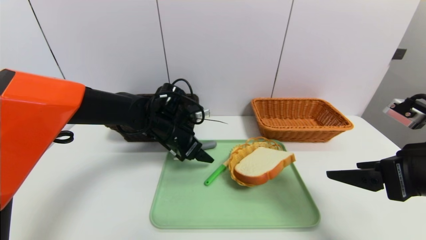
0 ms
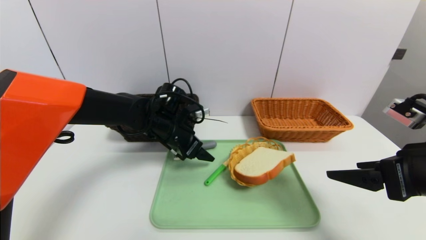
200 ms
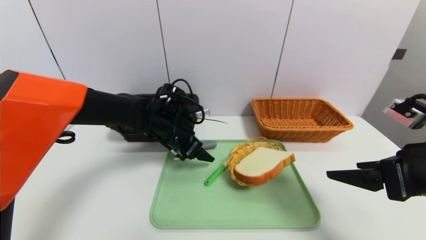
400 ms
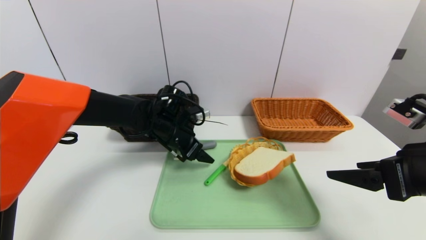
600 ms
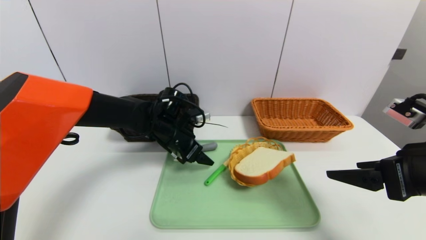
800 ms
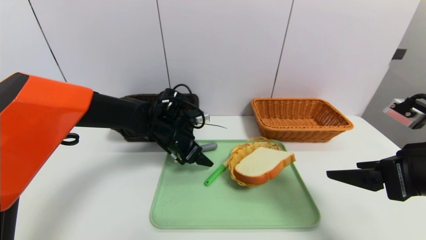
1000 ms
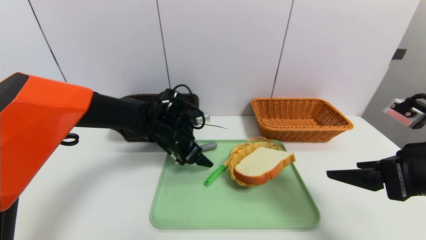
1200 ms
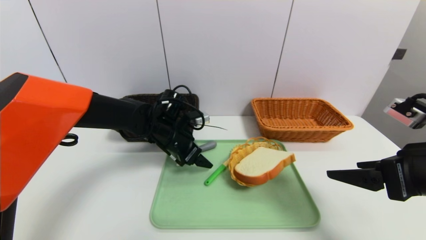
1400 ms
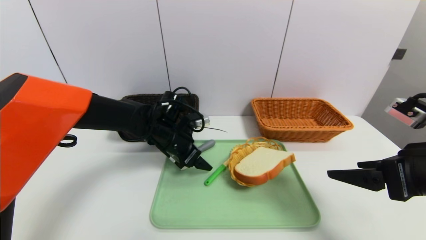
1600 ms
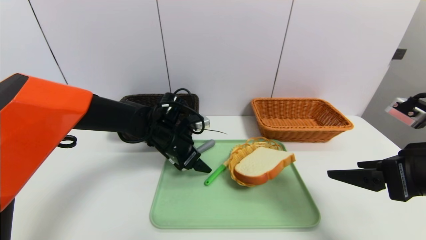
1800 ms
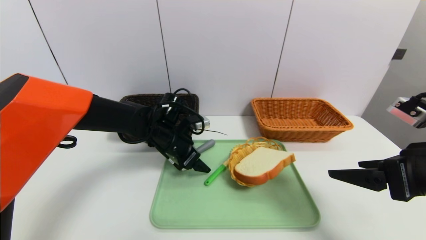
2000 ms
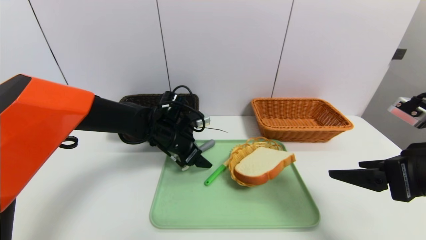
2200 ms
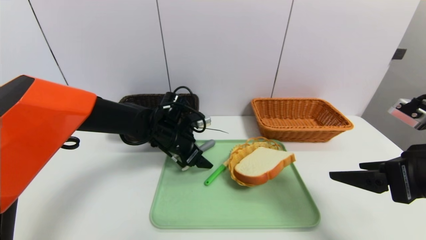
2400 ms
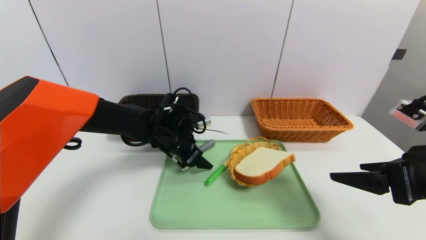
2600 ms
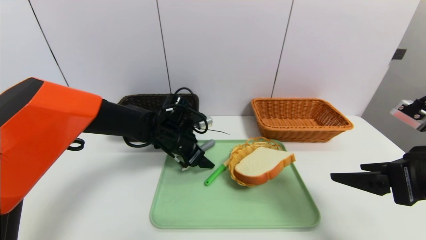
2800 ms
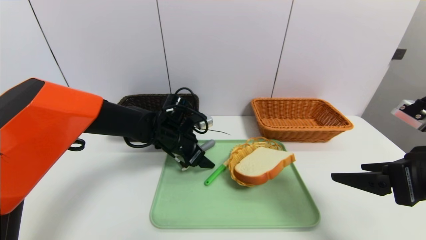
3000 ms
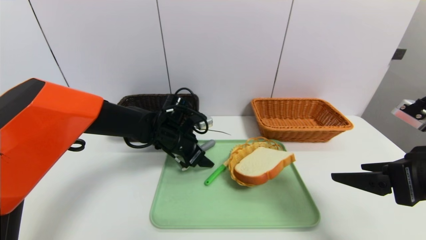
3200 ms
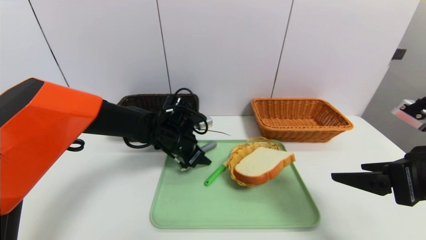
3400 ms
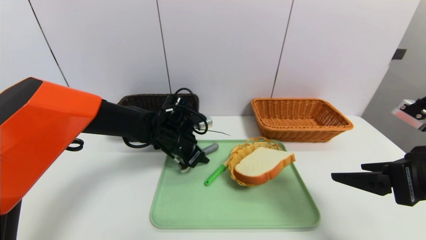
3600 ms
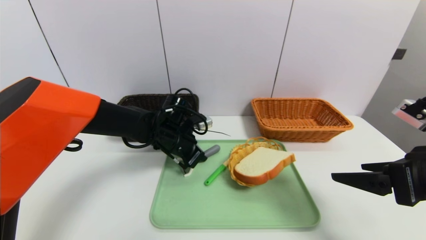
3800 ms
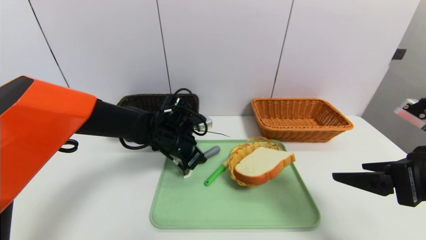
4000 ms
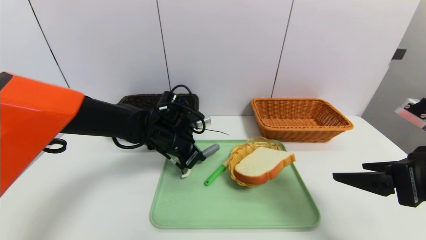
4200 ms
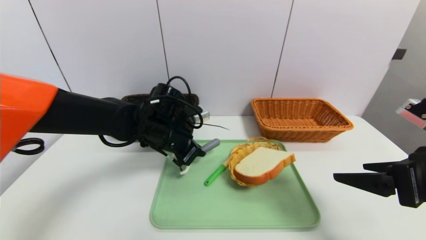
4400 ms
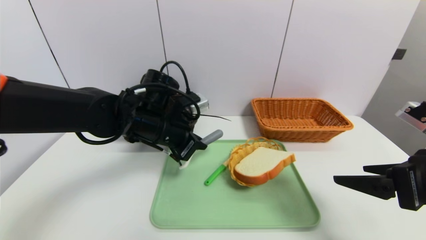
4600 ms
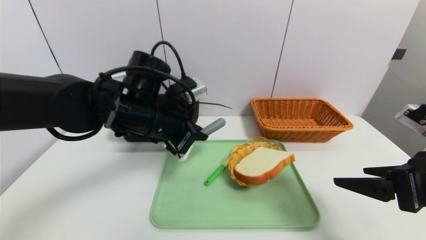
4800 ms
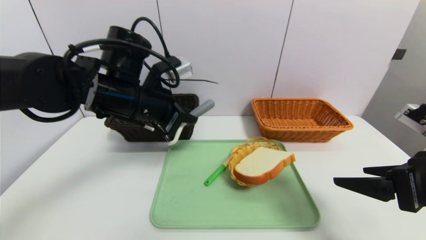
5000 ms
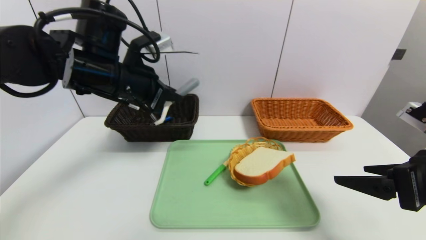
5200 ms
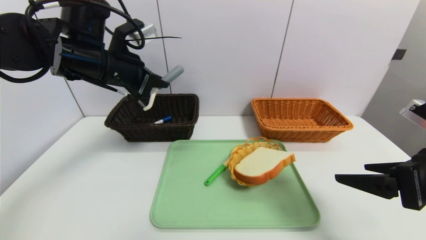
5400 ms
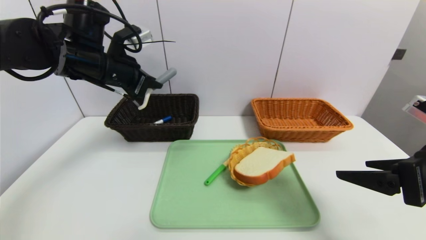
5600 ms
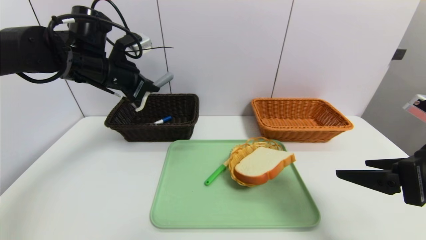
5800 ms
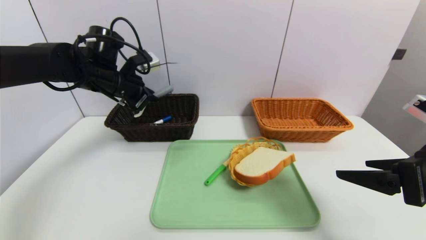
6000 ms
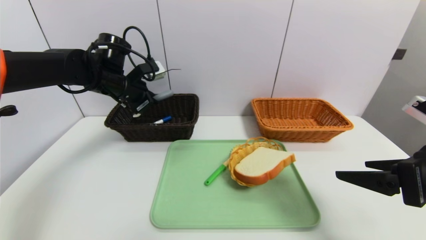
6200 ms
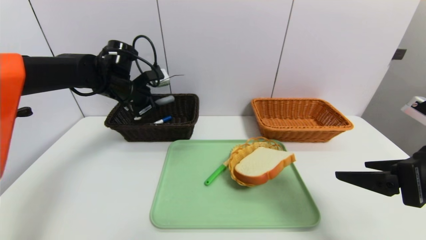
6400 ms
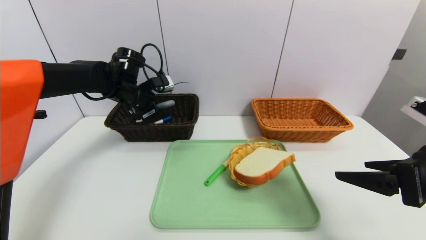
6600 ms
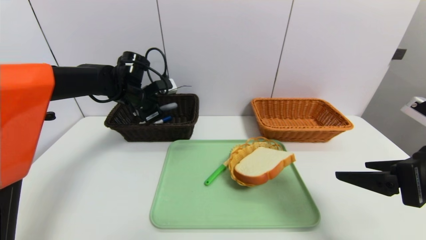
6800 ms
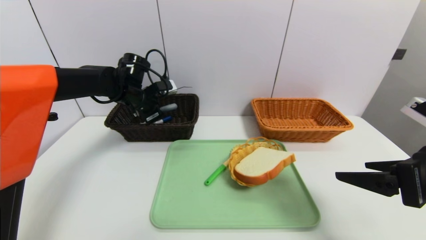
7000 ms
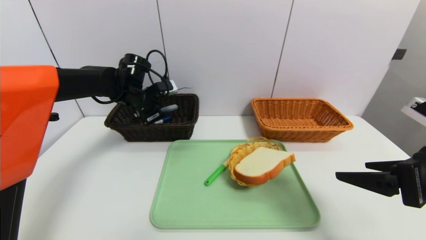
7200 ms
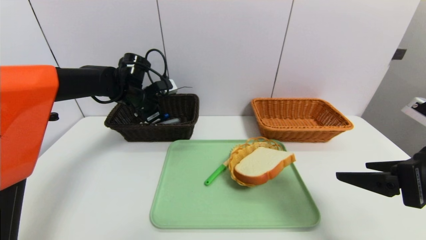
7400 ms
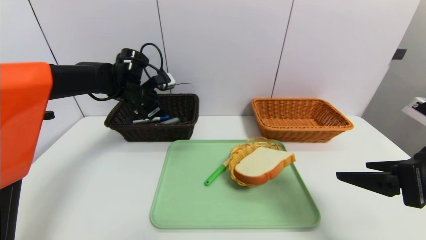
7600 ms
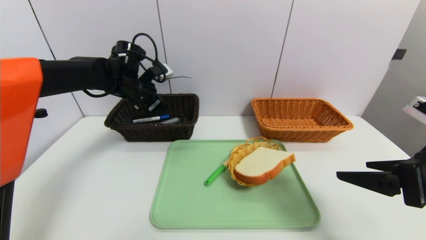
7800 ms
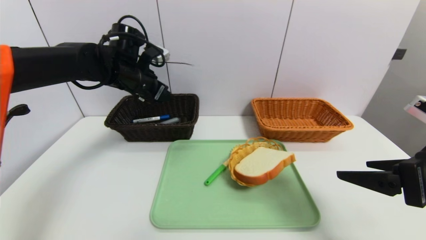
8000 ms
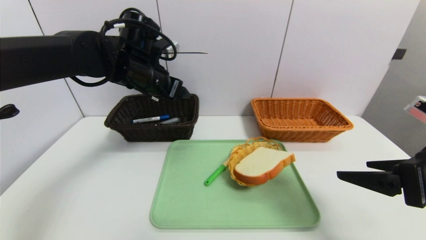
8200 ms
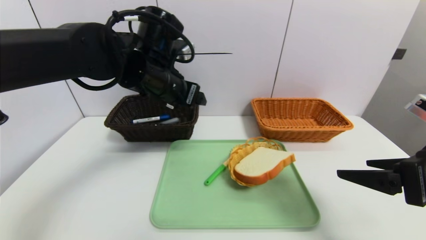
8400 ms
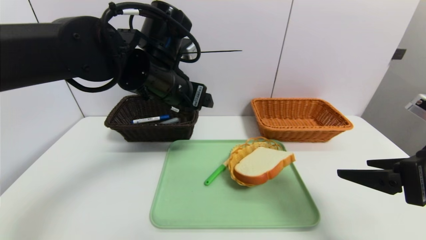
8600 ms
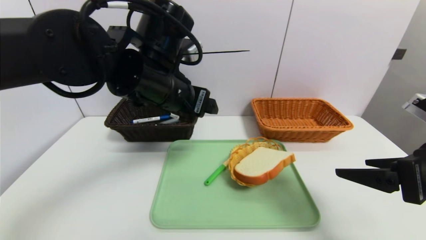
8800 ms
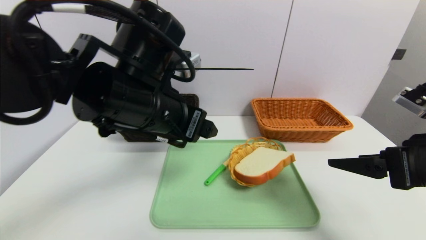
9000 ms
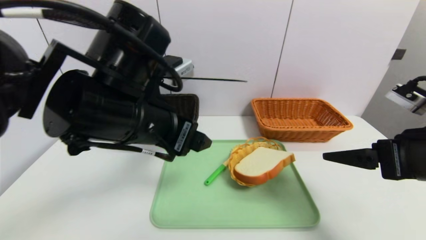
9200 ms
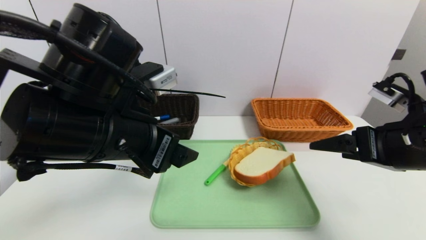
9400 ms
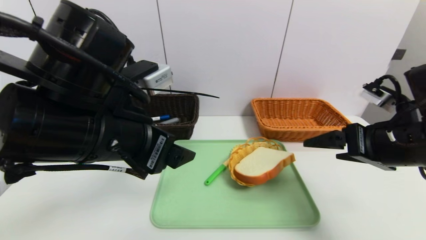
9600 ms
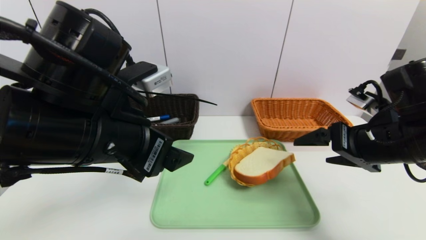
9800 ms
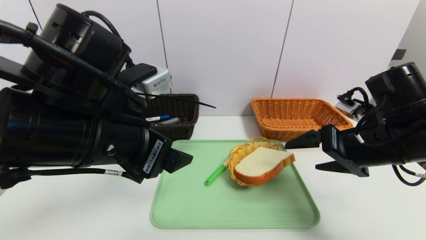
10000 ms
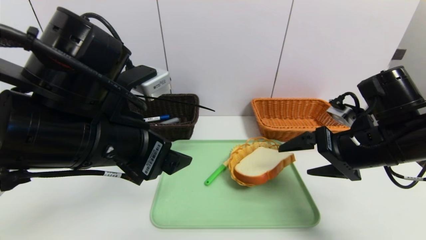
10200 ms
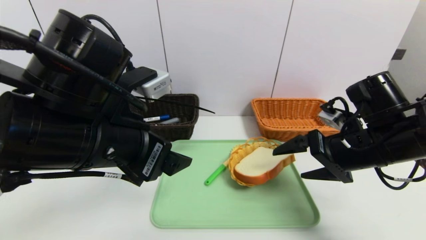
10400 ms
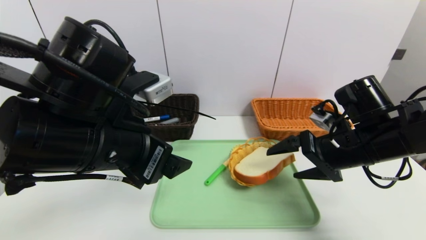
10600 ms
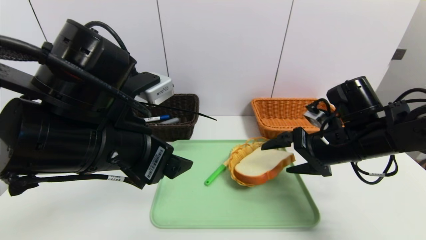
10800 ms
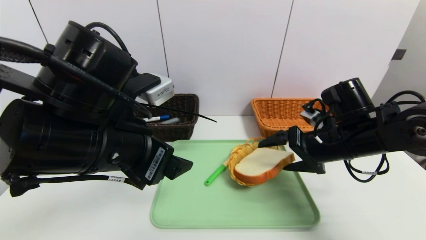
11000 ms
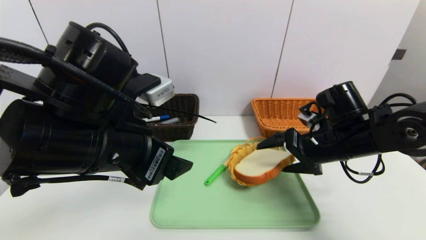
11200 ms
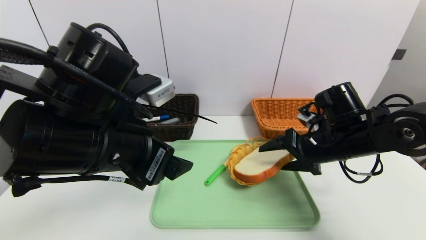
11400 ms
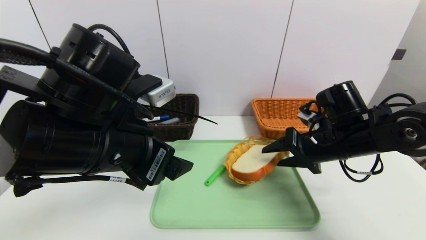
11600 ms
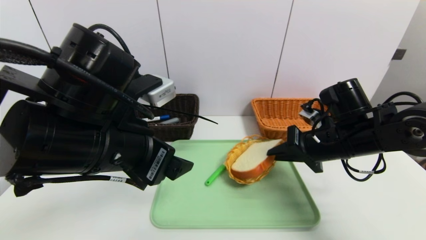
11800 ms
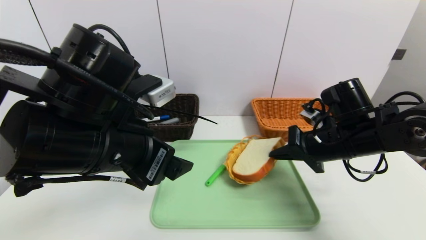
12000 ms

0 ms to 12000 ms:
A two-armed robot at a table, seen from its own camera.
Task of the whole recording: place the food in the right basket with the right gripper, and place the non food items in the left basket with the left gripper.
Step, 0 ms to 7800 ms: Grasp the peeler and put it in the left basket.
0 ms to 3000 ms: The grippers move only a little.
3000 ms to 4400 ms: The left gripper moves some 5 cm, and closes.
4400 ms to 6000 ms: The left gripper heads to the left, upward and forward, covering roughly 15 cm.
6000 ms to 7600 ms: The left gripper moves about 5 cm, and opens up.
7600 ms to 9000 ms: The left gripper is displaced backward and to the right by some 25 cm, and opens up.
9000 ms to 10400 ms: The left gripper moves backward, some 5 cm; the right gripper travels forward by roughly 10 cm.
10400 ms to 12000 ms: The right gripper closes its fingers.

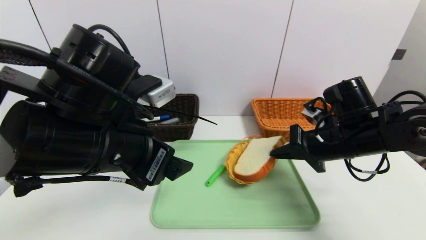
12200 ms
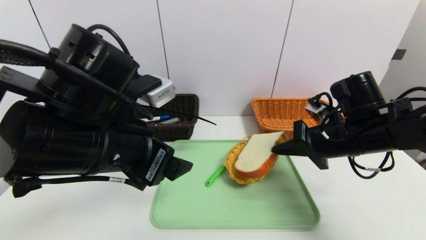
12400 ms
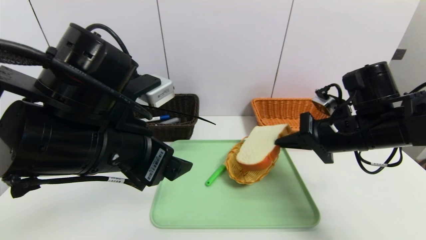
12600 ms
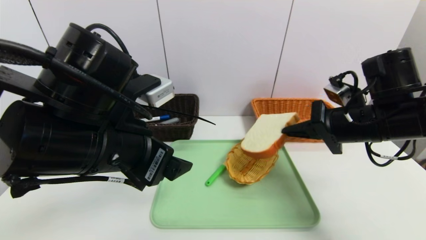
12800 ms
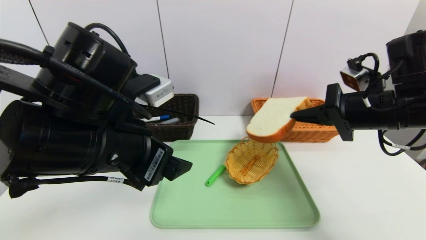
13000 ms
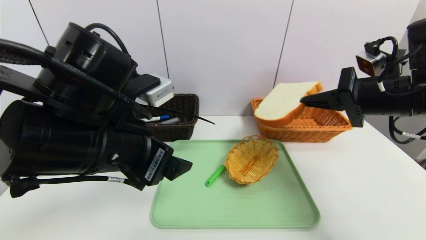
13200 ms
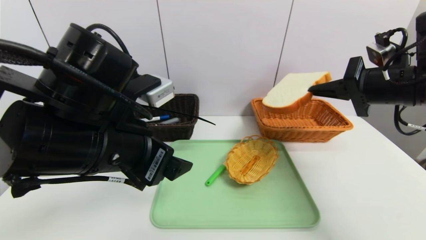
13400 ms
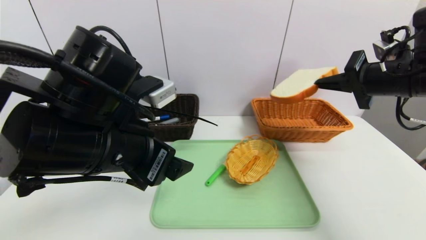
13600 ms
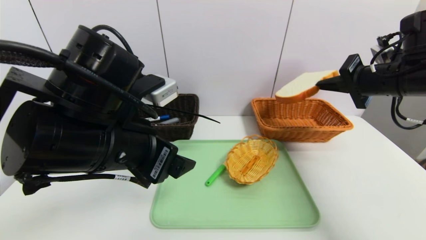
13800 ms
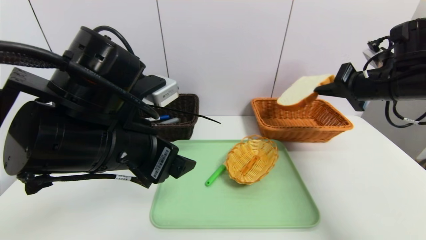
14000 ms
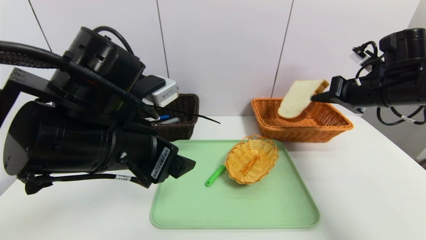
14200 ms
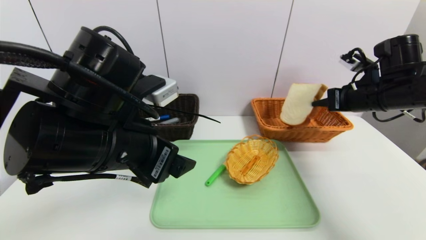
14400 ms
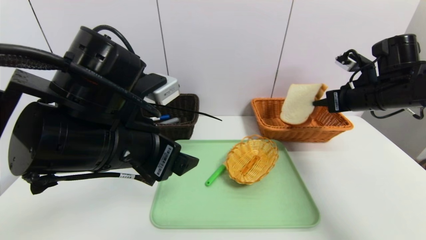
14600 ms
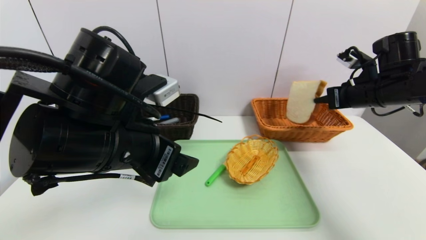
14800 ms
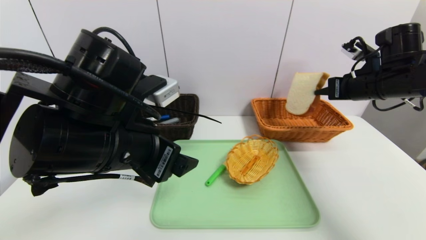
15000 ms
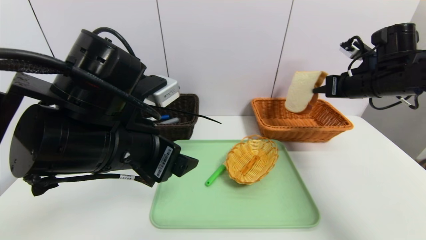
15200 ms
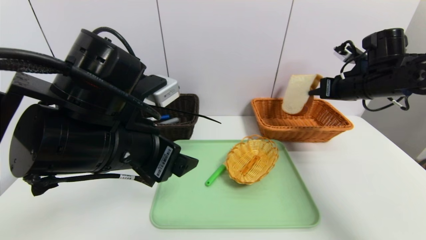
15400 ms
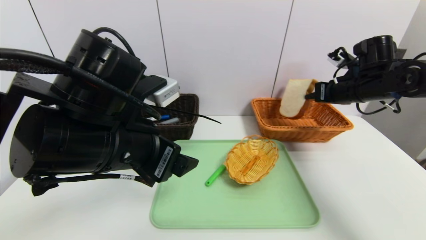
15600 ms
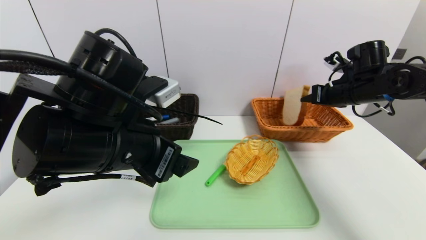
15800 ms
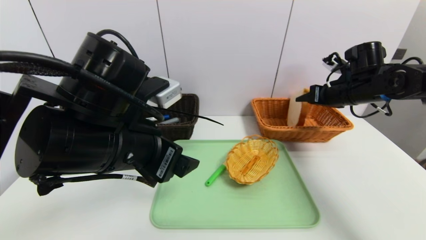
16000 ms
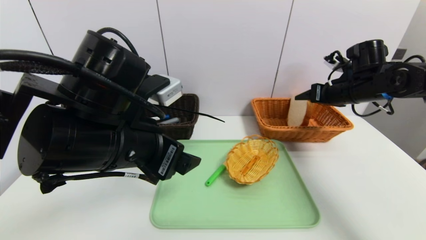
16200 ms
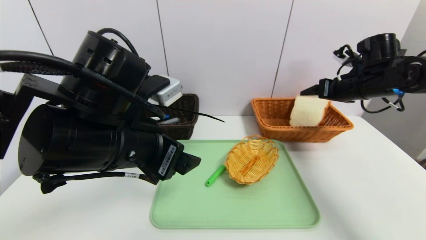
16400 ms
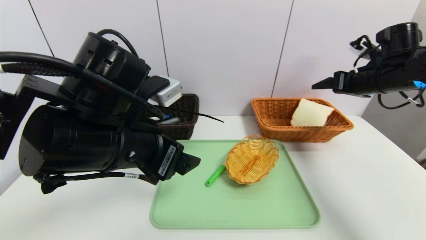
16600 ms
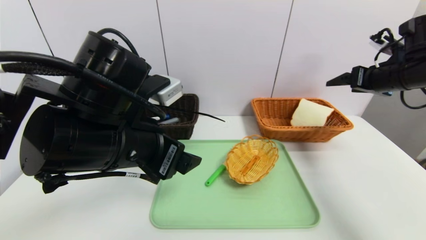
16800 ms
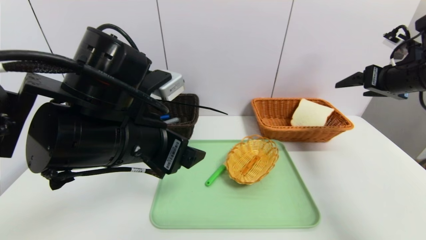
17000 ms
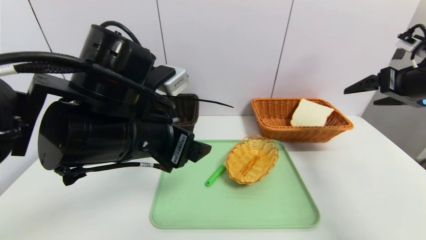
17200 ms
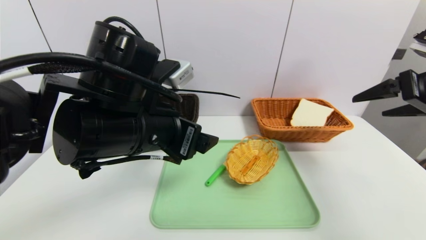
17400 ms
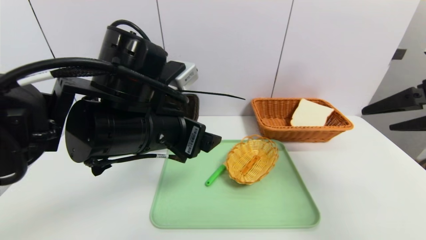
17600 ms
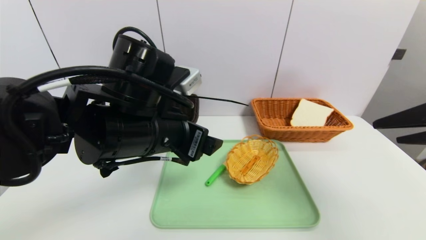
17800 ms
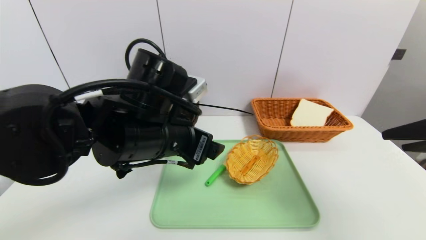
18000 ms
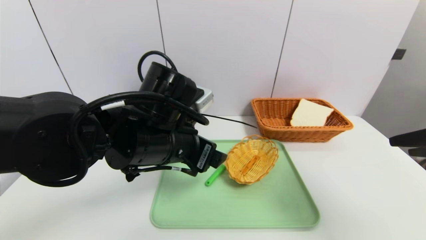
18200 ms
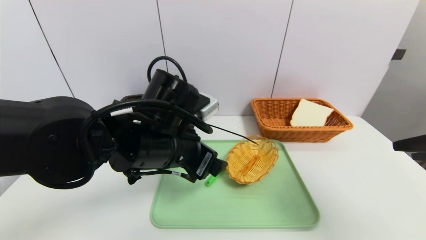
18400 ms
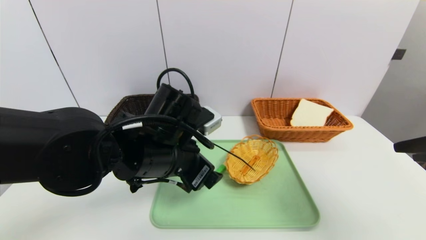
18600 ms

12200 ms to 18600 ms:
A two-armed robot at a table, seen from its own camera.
Task of the whole recording: place the food in the right basket with the right gripper, and place the non food items in the left basket with the left gripper.
Step, 12200 ms to 16400 ms: Grasp the bread slice and put it in the right basket.
12200 ms to 13800 ms: The right gripper heads upward and to the right, covering some 15 cm.
13800 ms to 15400 ms: The right gripper moves forward, approximately 5 cm.
15400 ms to 17000 ms: The right gripper goes some 10 cm backward and to the right, and opens.
17000 ms to 18600 ms: The right gripper shifts about 20 cm backward, while the left gripper goes approximately 5 cm downward.
